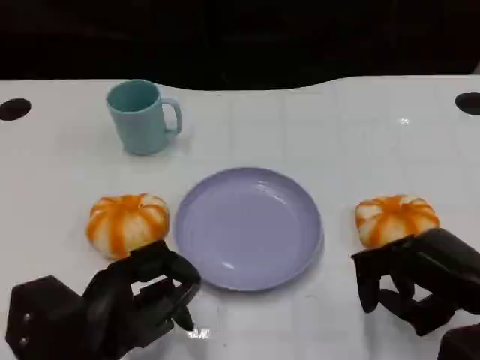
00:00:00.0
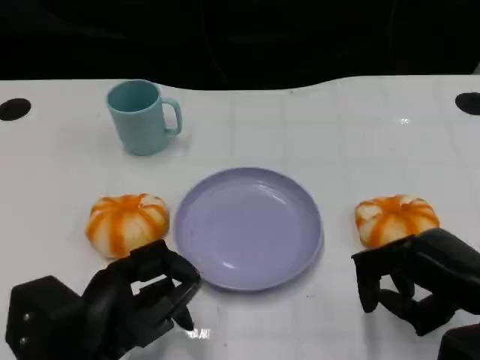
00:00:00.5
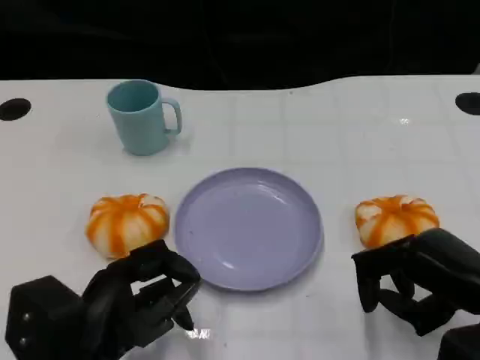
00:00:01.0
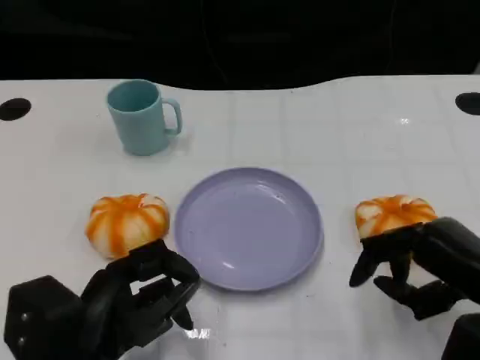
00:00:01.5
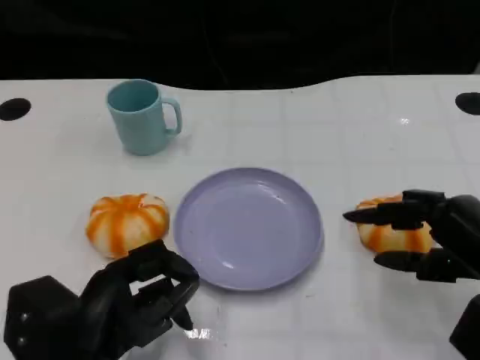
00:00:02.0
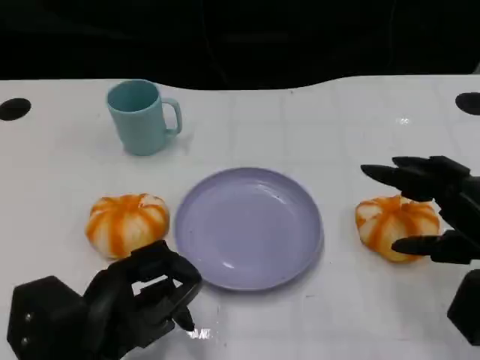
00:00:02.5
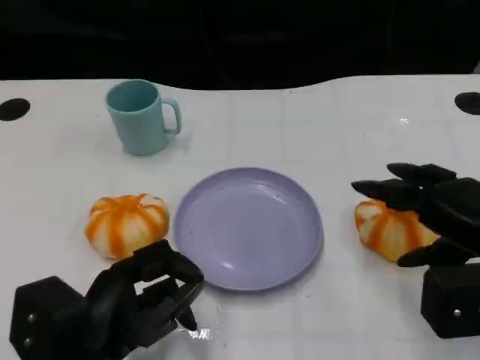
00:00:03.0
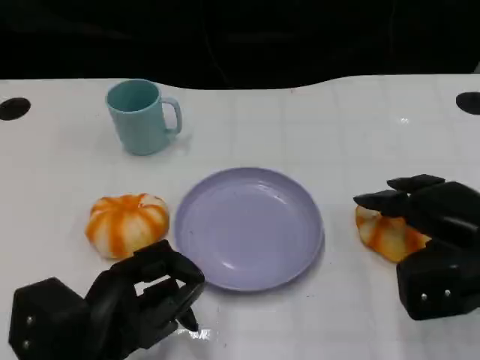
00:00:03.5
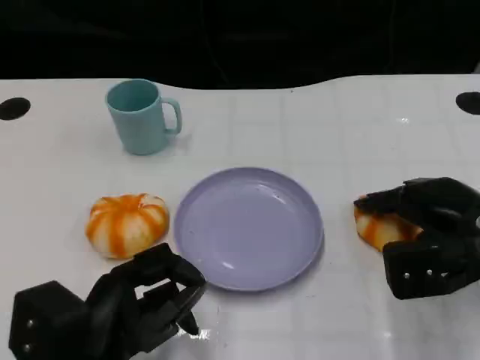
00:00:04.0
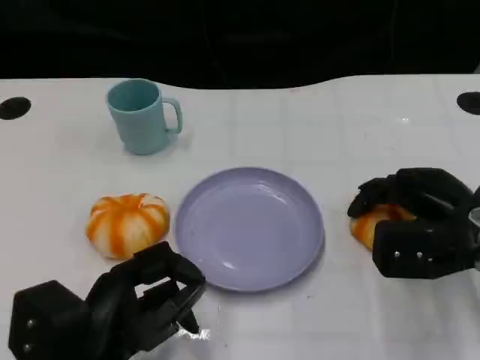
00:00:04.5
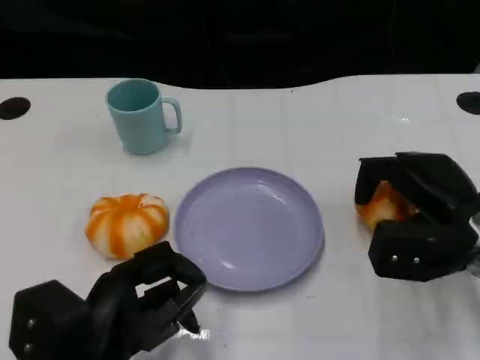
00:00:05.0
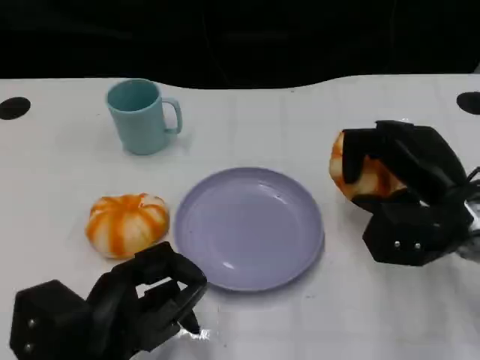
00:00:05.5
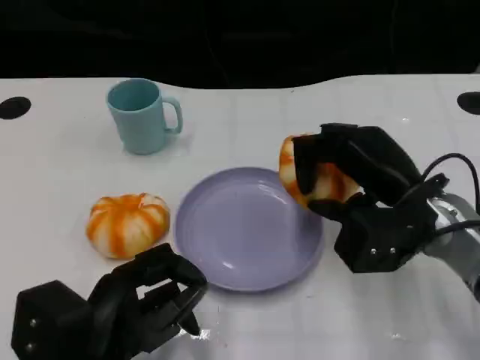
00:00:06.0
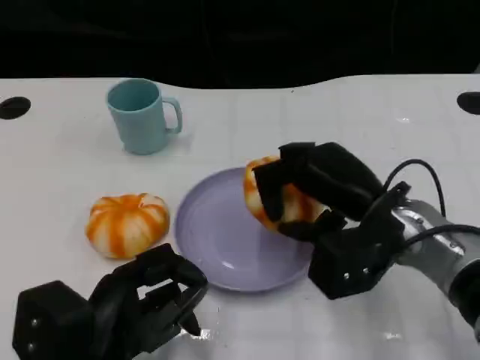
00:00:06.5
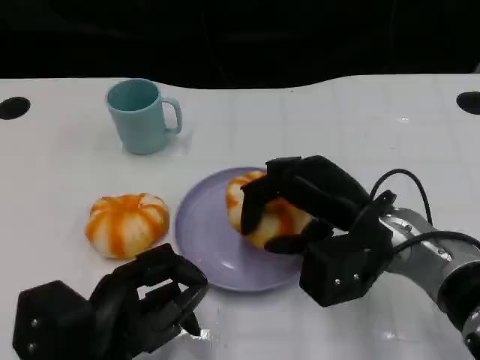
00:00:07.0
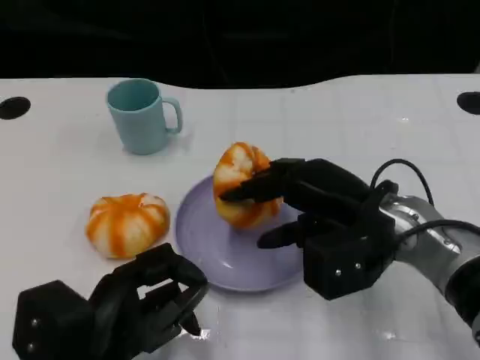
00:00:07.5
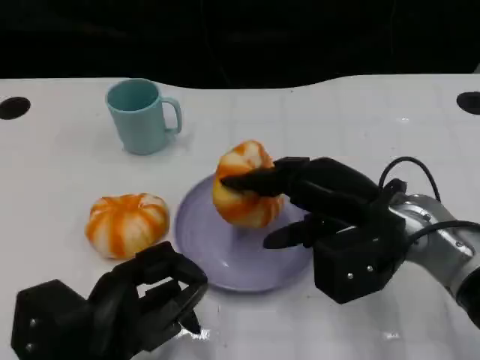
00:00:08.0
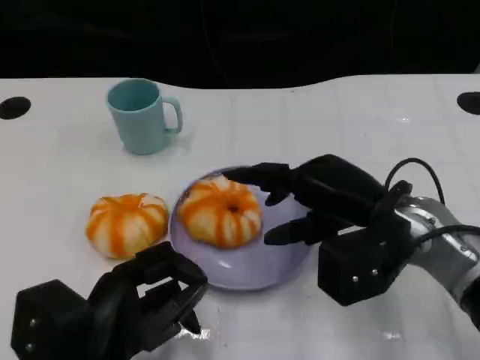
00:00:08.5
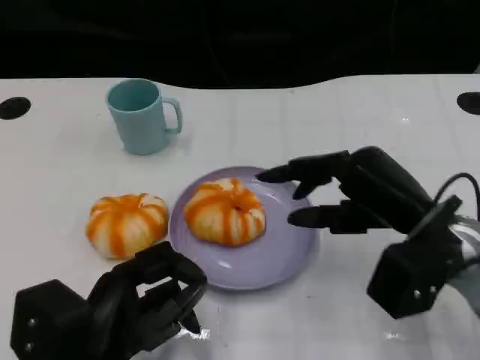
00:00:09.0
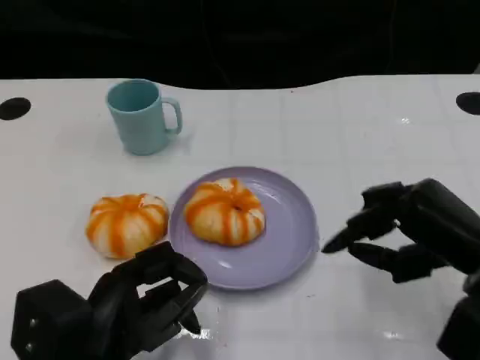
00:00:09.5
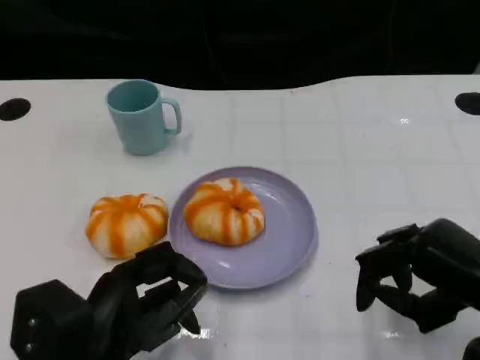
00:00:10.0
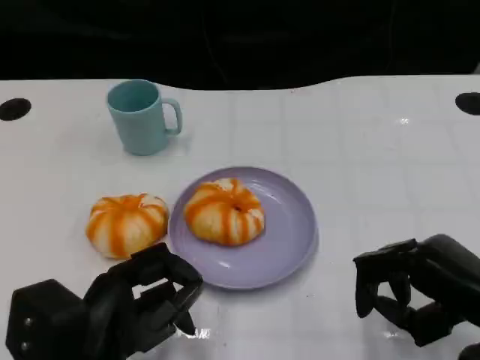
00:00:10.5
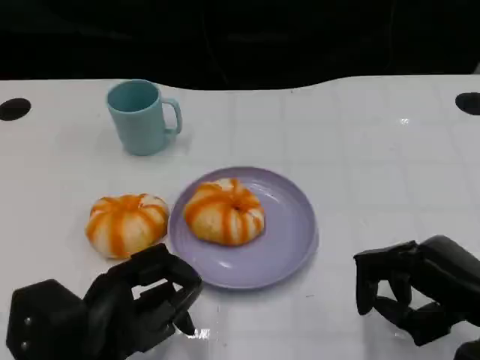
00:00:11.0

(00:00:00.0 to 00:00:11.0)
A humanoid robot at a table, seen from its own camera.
Task of the whole recording: Grasp the bread from the table and place it into the plate.
00:00:00.0 - 00:00:02.0: There are only small adjustments of the hands.
00:00:02.0 - 00:00:03.5: The right hand goes about 5 cm forward.
00:00:03.5 - 00:00:05.5: The right hand moves about 5 cm.
00:00:05.5 - 00:00:07.5: The right hand is displaced to the left by some 5 cm.
00:00:07.5 - 00:00:09.0: The right hand ends up approximately 5 cm from where it was.
00:00:09.0 - 00:00:11.0: The right hand travels backward and to the right by approximately 10 cm.

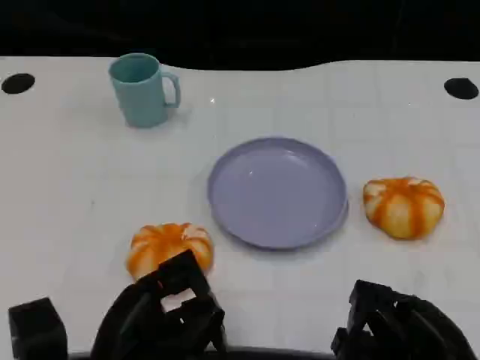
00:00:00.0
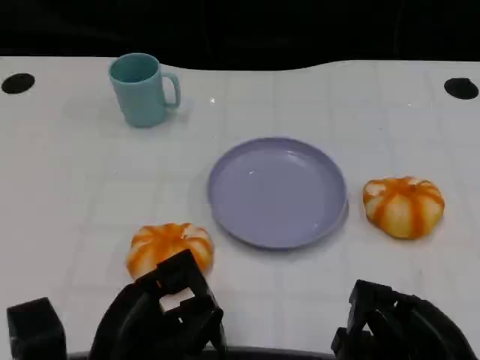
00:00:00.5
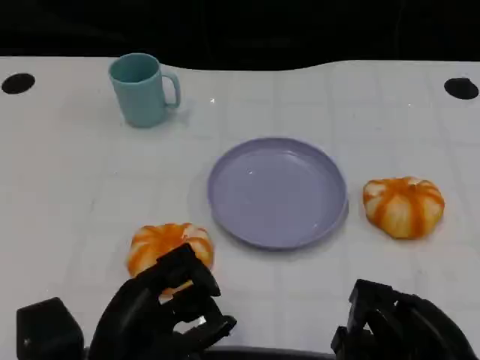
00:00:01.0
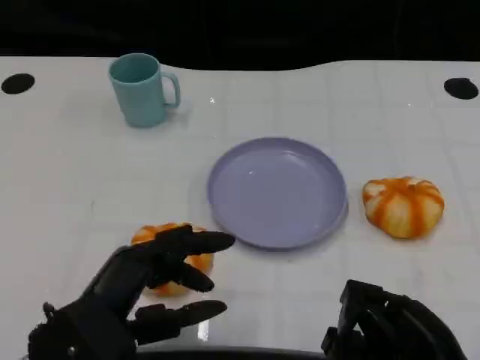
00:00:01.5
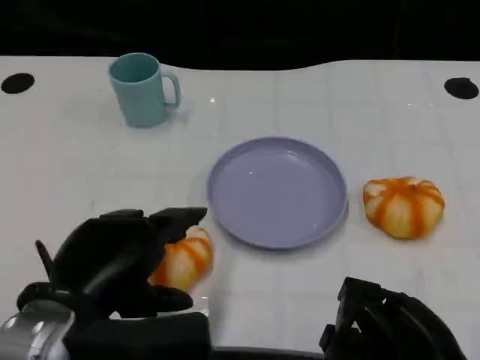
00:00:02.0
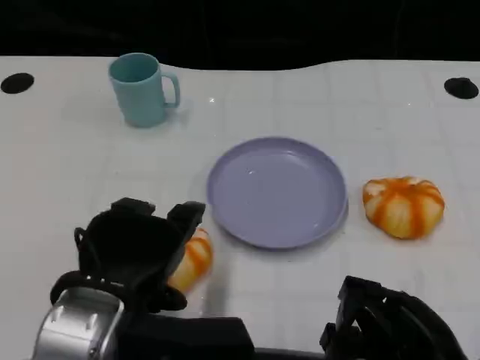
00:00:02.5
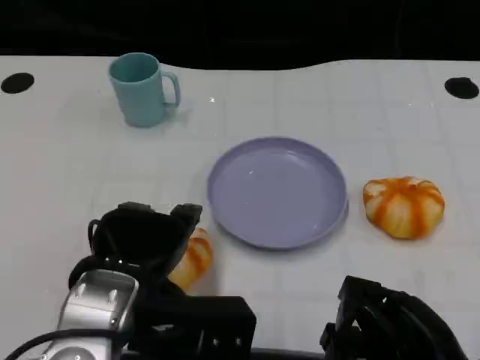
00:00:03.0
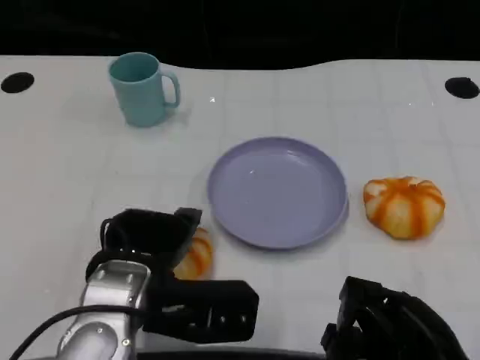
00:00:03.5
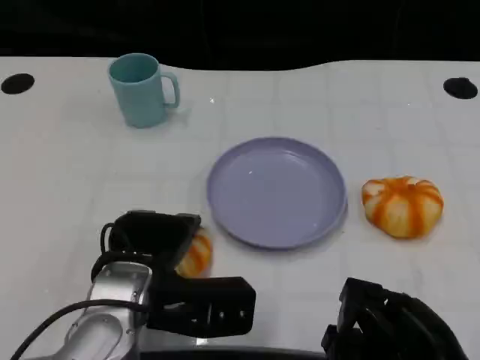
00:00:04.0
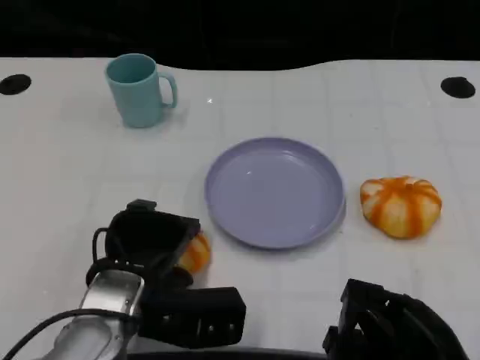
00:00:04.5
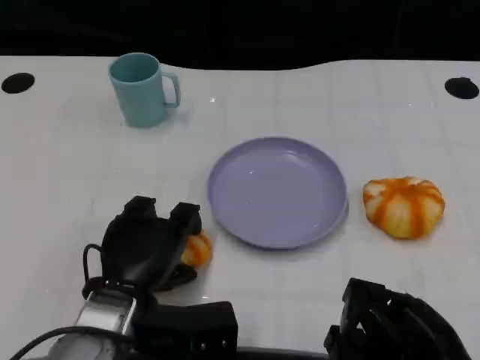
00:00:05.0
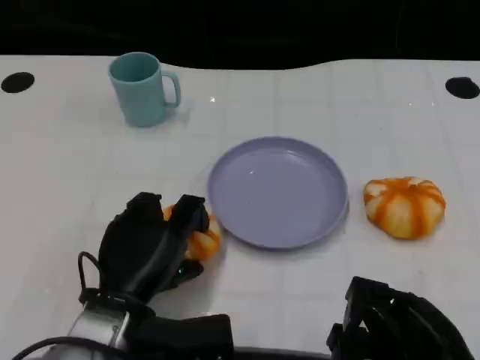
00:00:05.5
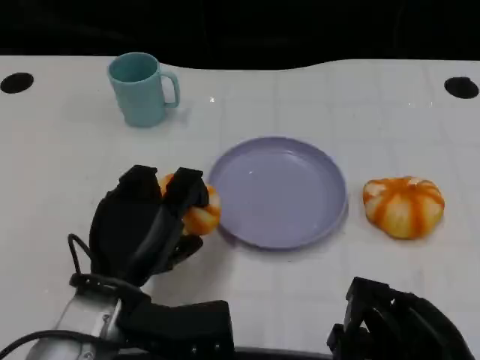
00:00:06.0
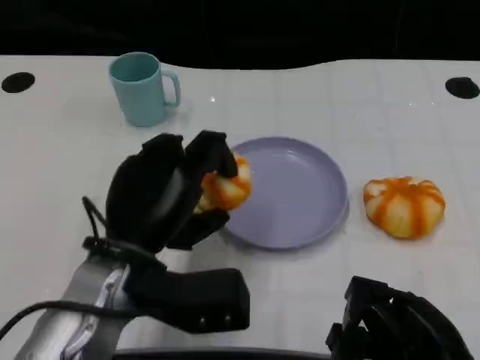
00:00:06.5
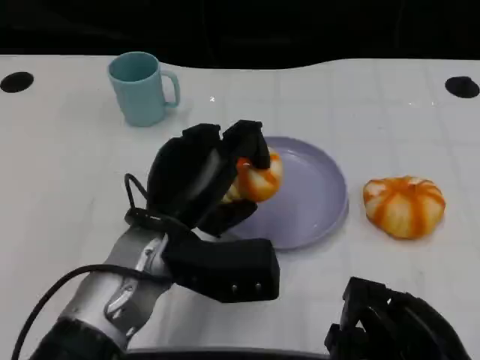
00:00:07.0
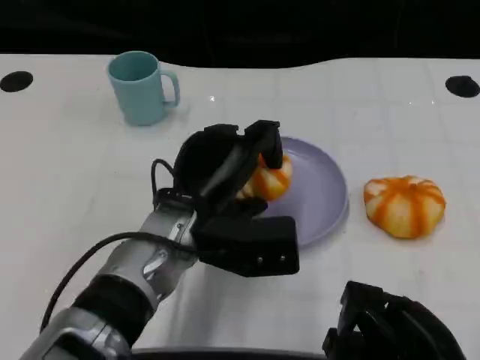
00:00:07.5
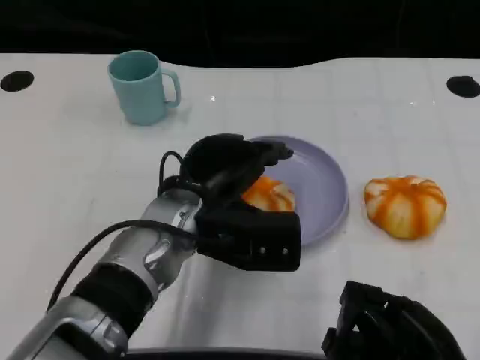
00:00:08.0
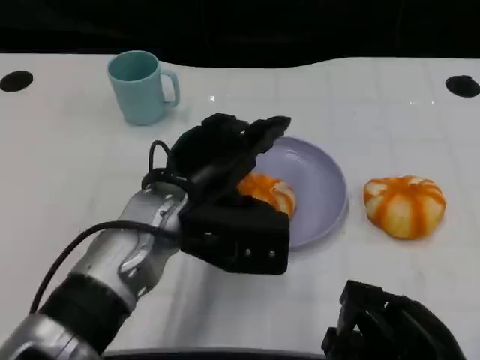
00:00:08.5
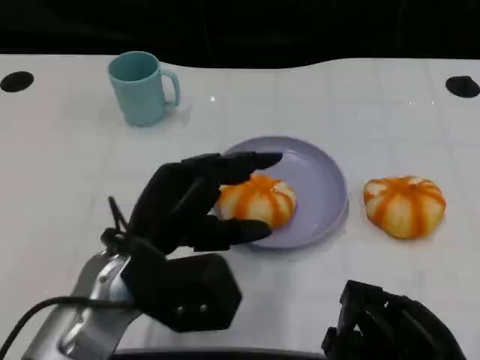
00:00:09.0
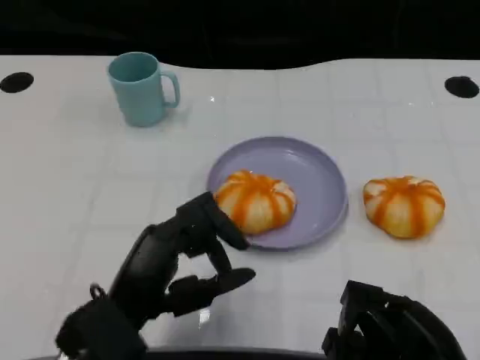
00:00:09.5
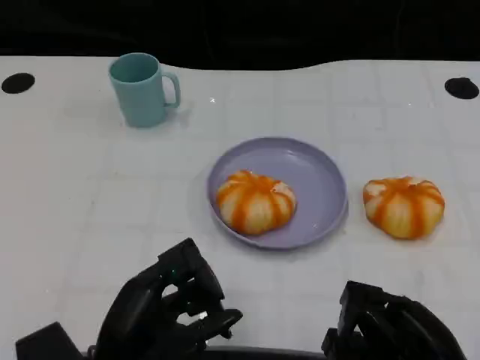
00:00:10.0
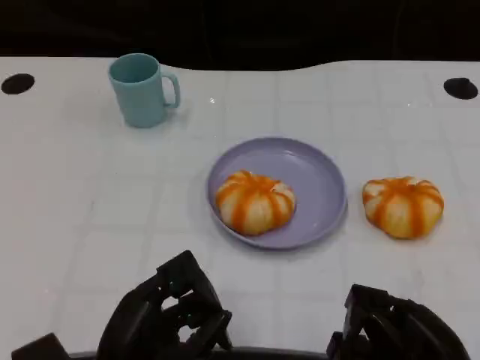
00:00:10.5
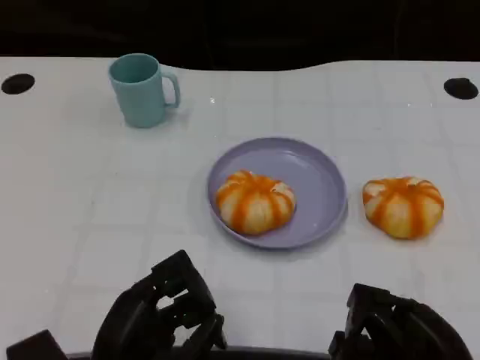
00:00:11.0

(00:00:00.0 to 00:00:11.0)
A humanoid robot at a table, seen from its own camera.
Task of the whole recording: Grasp the bread from the table and place it into the plate.
00:00:00.0 - 00:00:02.0: The left hand heads upward, covering some 10 cm.
00:00:02.0 - 00:00:03.5: The left hand shifts approximately 5 cm forward.
00:00:03.5 - 00:00:05.5: The left hand moves downward, approximately 5 cm.
00:00:05.5 - 00:00:07.5: The left hand goes some 10 cm to the right, forward and upward.
00:00:07.5 - 00:00:09.0: The left hand heads to the left and backward, covering roughly 10 cm.
00:00:09.0 - 00:00:11.0: The left hand heads backward and downward, covering about 10 cm.

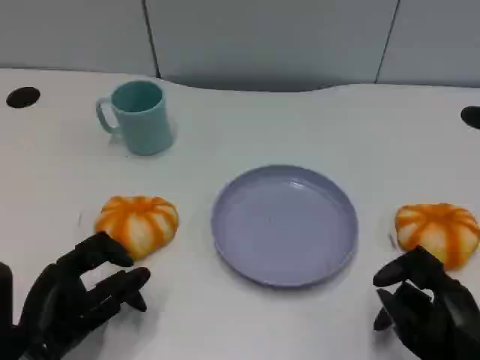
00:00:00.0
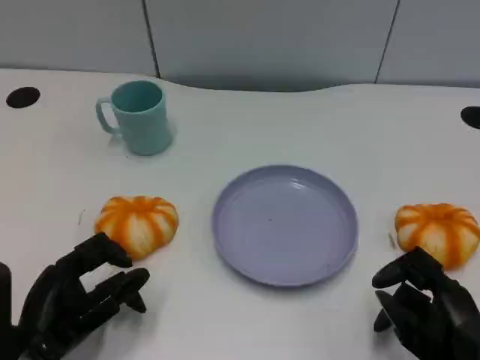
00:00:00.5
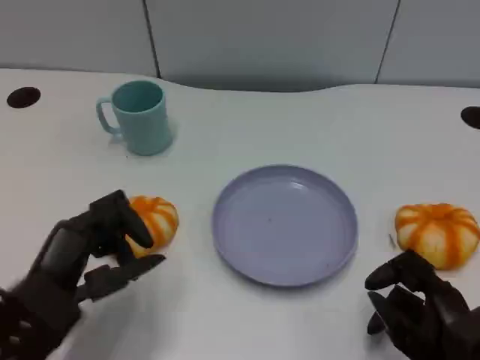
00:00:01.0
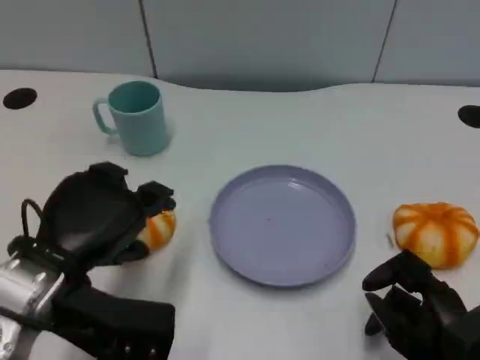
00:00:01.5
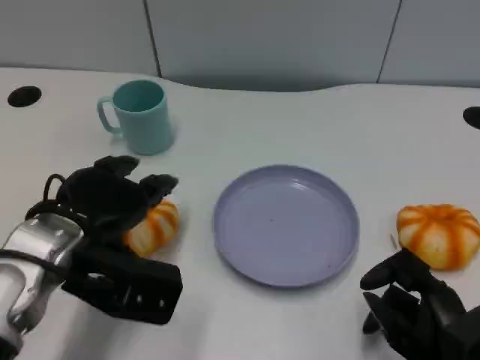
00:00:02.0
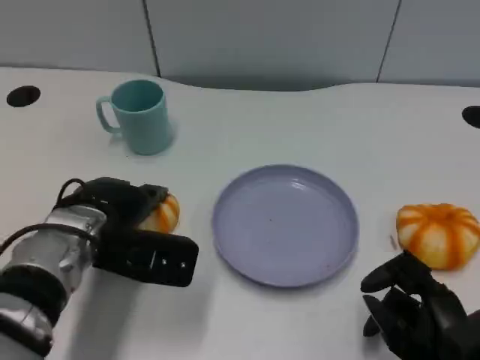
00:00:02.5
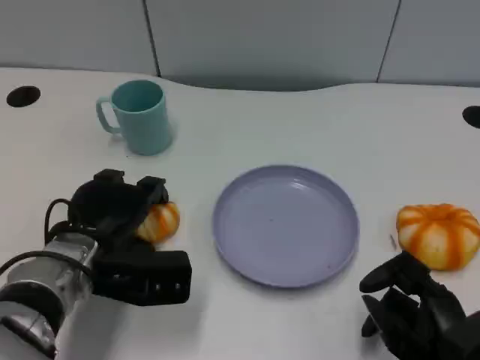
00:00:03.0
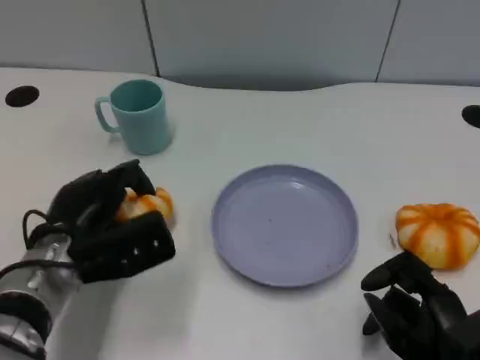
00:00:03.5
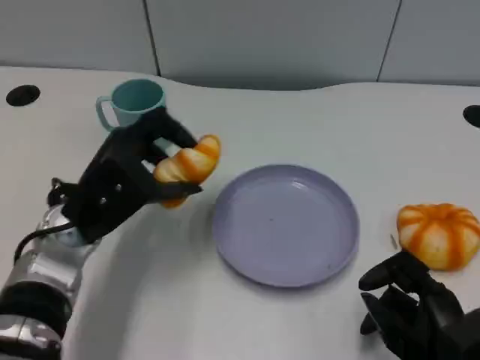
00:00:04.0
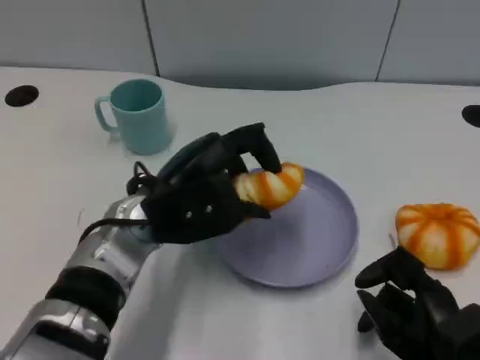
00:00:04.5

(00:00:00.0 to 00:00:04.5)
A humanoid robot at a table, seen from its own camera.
Task of the whole recording: Grasp the bread from the table and place it into the plate.
00:00:00.0 - 00:00:02.0: The left hand moves forward and upward, about 10 cm.
00:00:02.0 - 00:00:04.5: The left hand travels to the right by some 10 cm.
